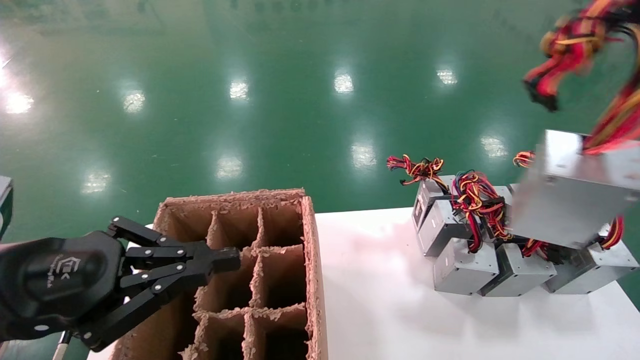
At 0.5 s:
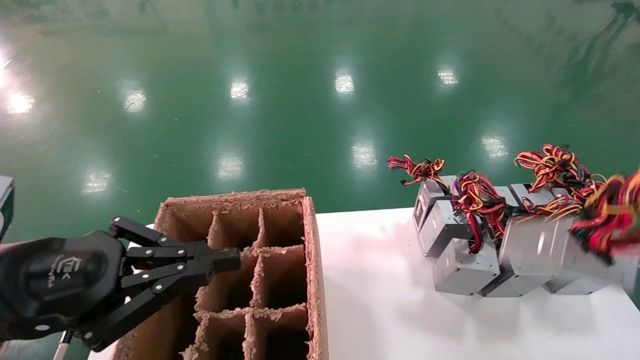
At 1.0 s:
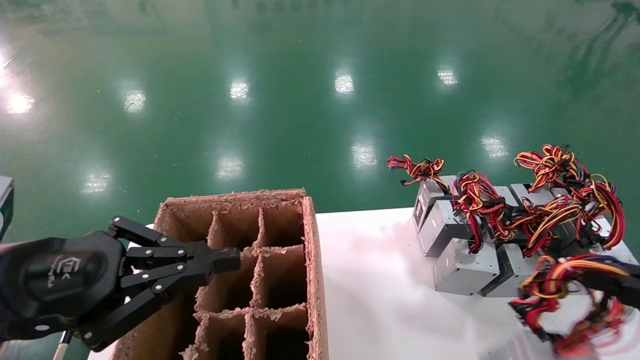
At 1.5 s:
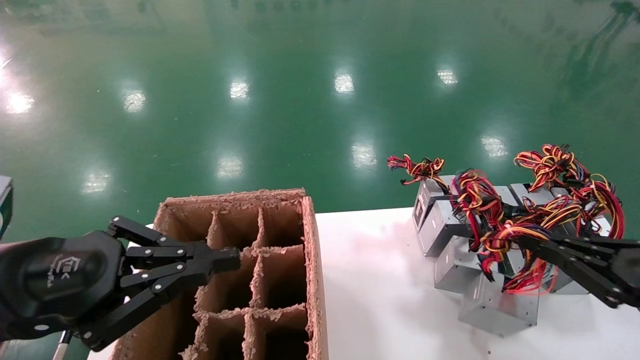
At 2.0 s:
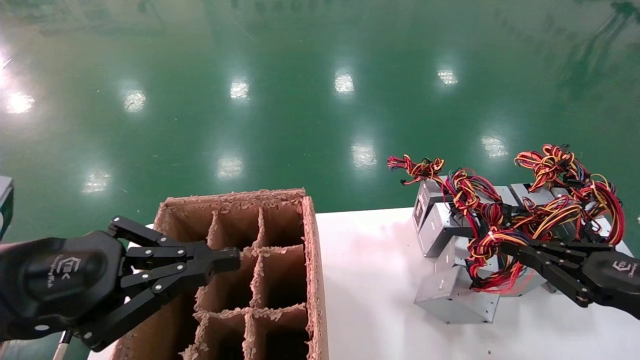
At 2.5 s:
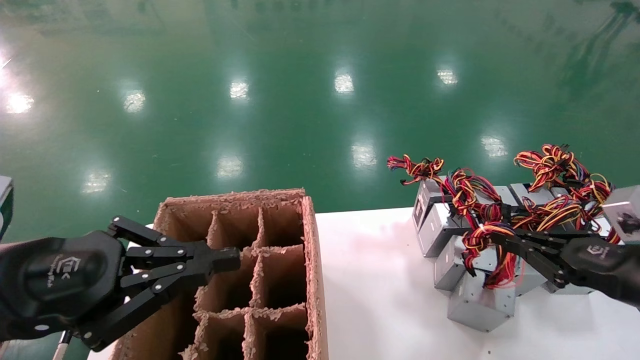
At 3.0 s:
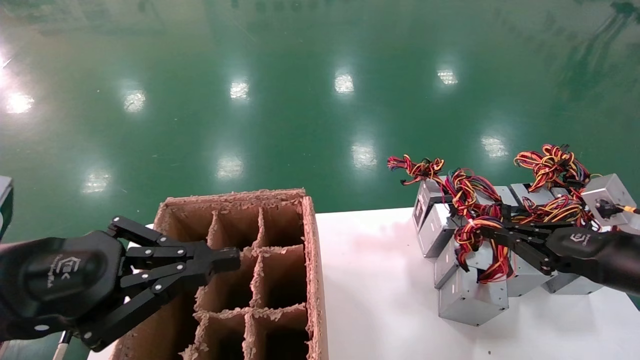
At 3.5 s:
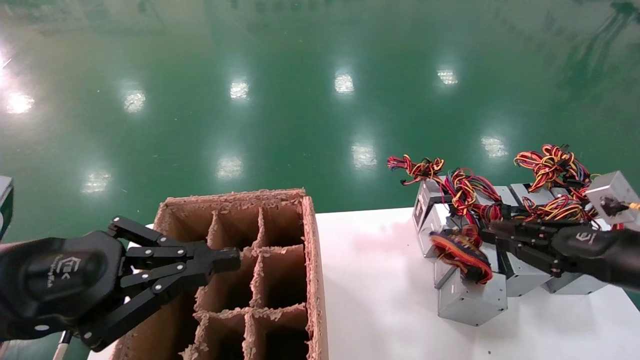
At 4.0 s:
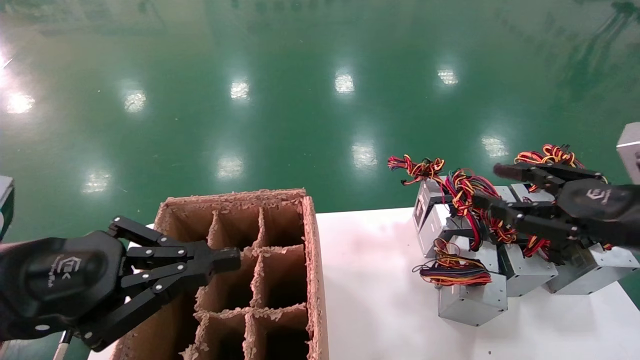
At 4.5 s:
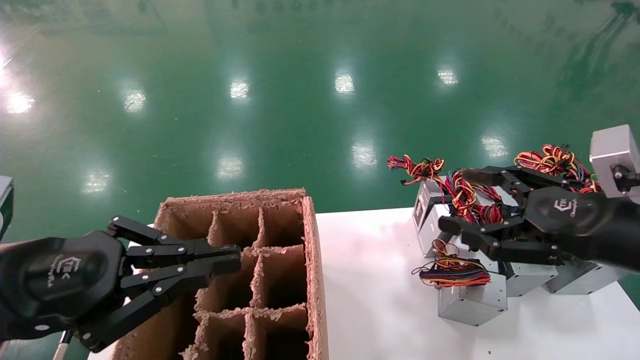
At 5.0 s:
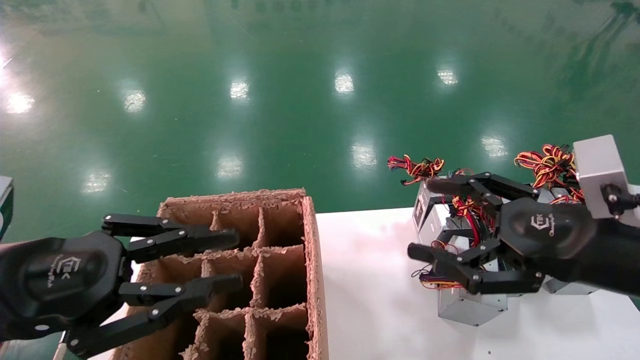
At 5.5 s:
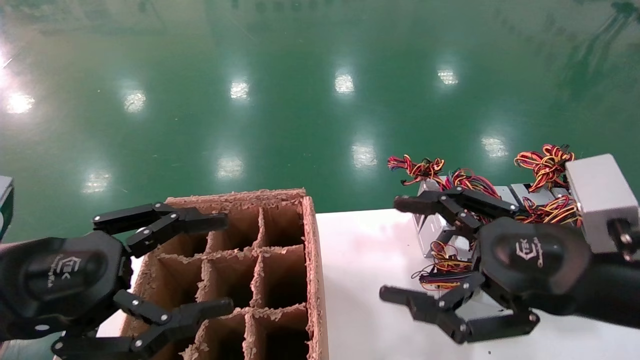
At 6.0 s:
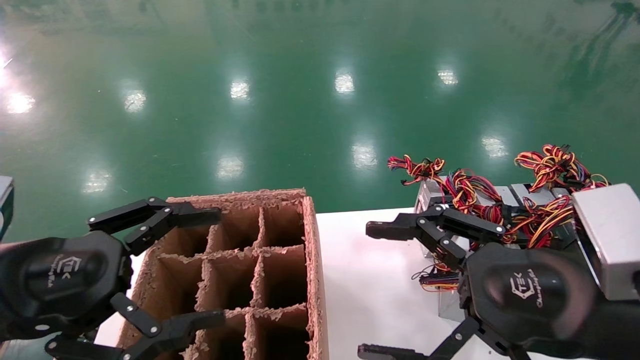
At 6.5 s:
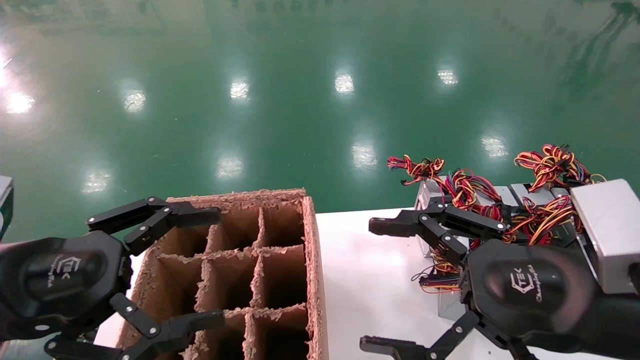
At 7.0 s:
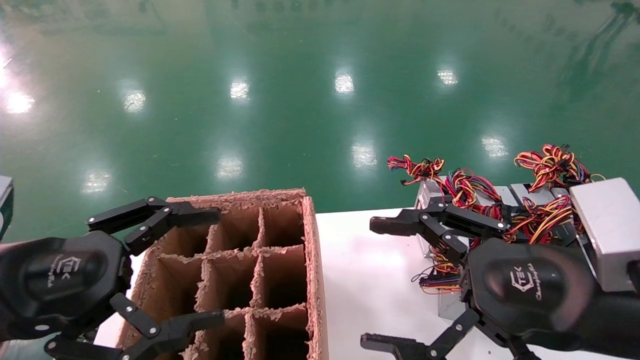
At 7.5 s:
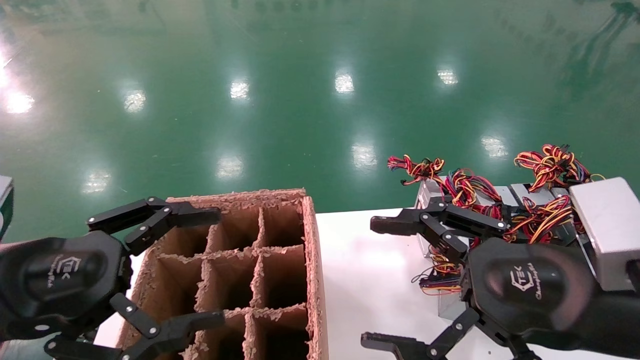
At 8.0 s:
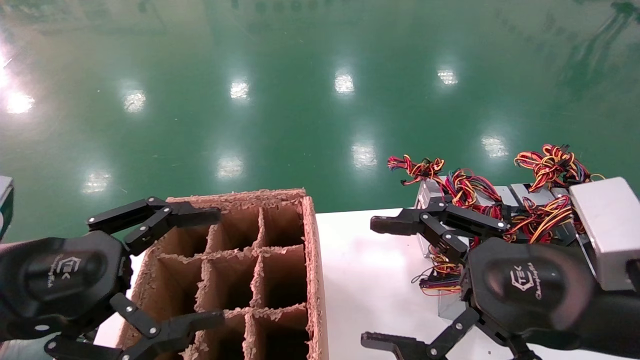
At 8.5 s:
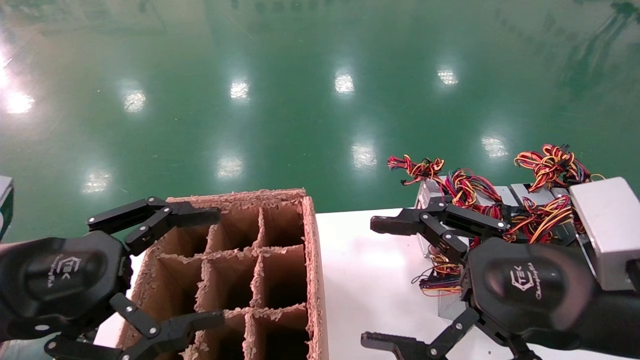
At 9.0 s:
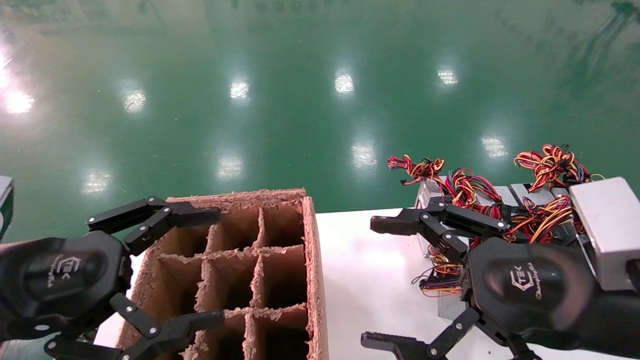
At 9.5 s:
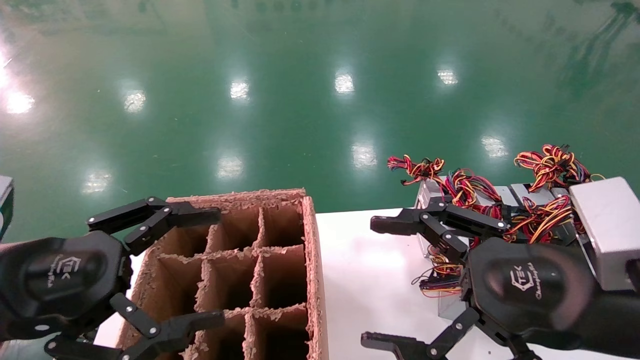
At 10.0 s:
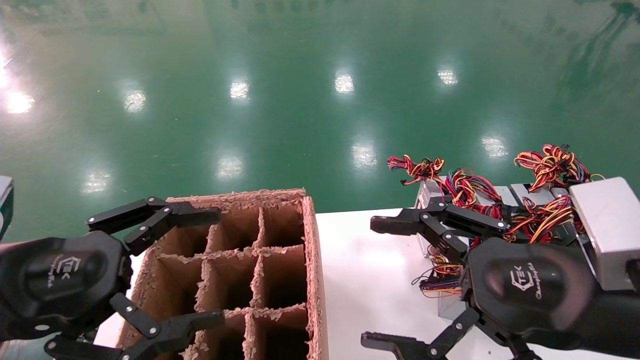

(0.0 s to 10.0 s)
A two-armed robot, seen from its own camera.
Step, 0.0 s - 5.0 s: Place the main unit power supply in the designated area.
0.0 s - 2.0 s: The right gripper travels downward and forward by some 20 cm.
2.0 s - 4.0 s: The right gripper is displaced upward by approximately 5 cm, and opens its fingers.
4.0 s - 6.0 s: The right gripper moves to the left and backward, about 15 cm, and opens. Meanwhile the left gripper opens its fingers.
6.0 s - 10.0 s: Neither gripper changes place.

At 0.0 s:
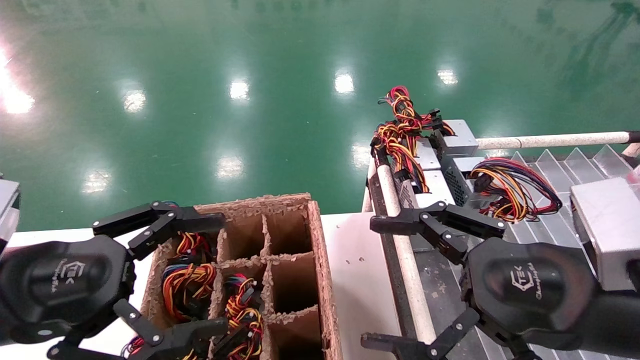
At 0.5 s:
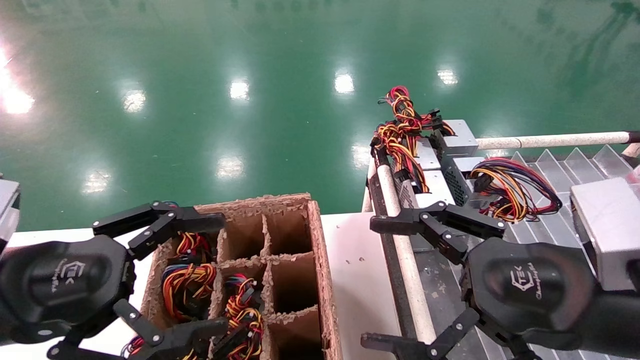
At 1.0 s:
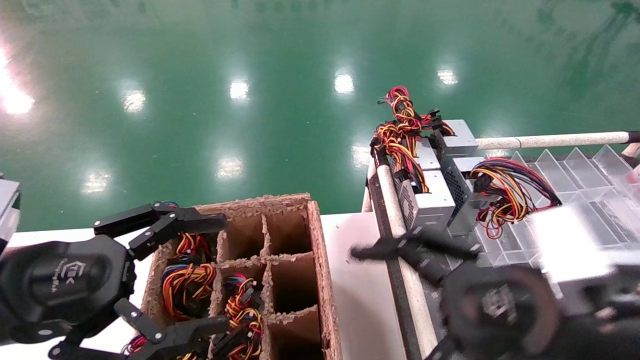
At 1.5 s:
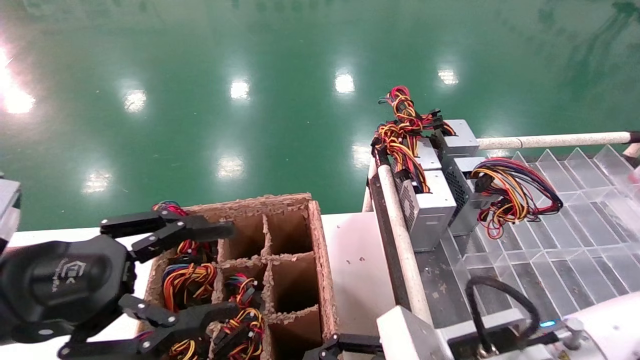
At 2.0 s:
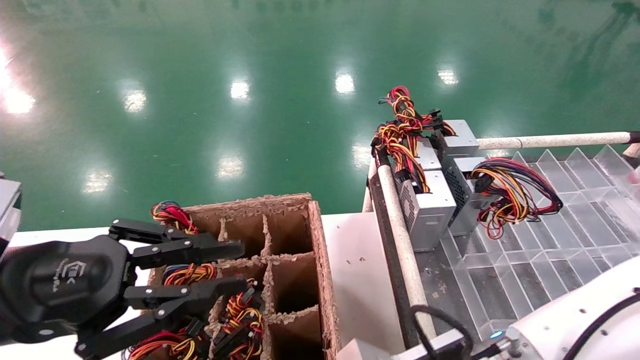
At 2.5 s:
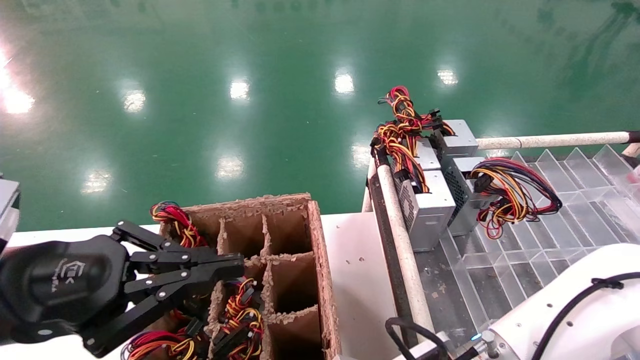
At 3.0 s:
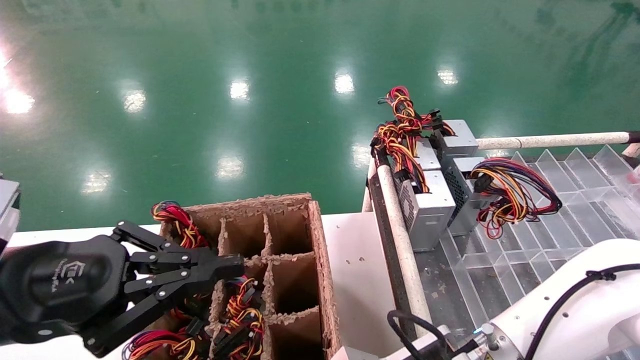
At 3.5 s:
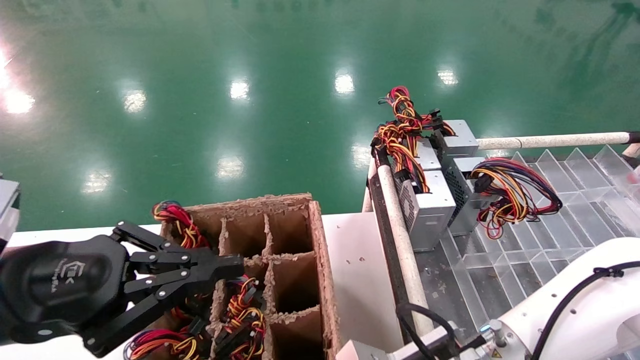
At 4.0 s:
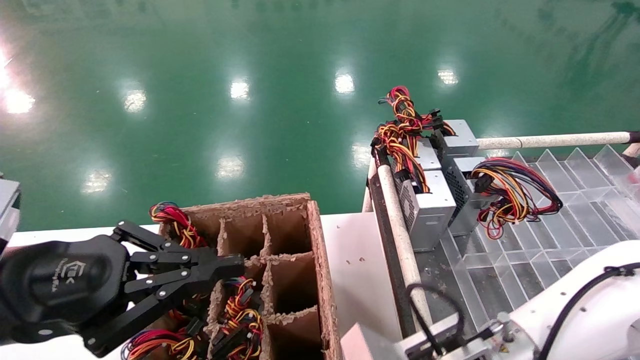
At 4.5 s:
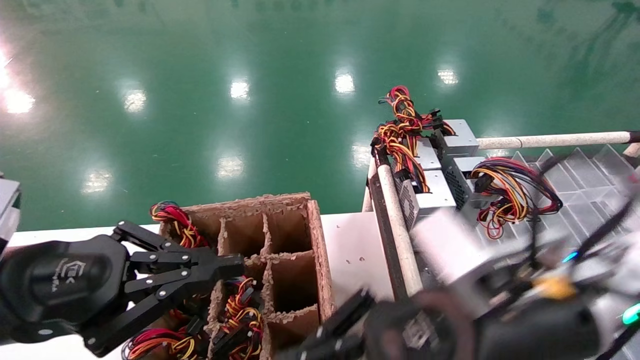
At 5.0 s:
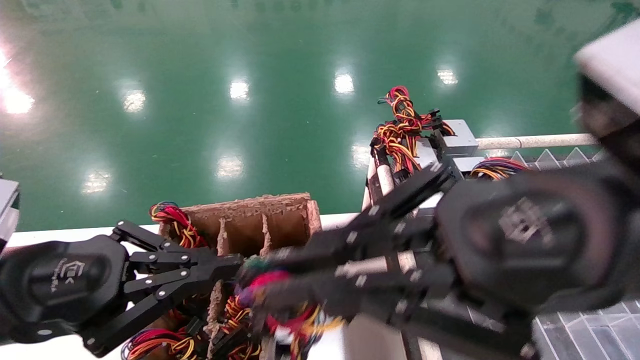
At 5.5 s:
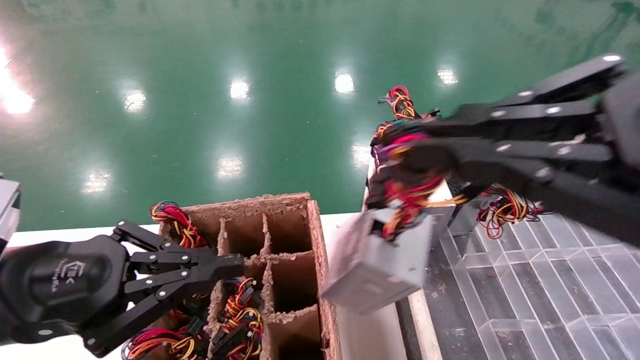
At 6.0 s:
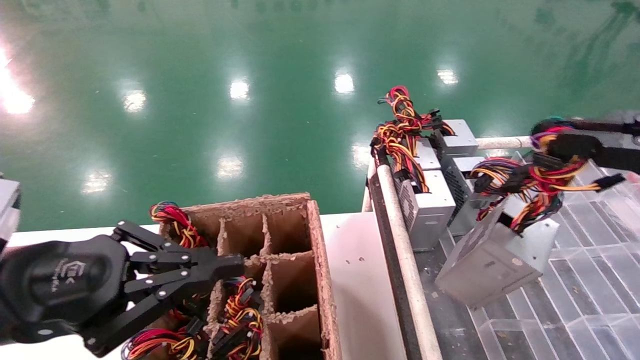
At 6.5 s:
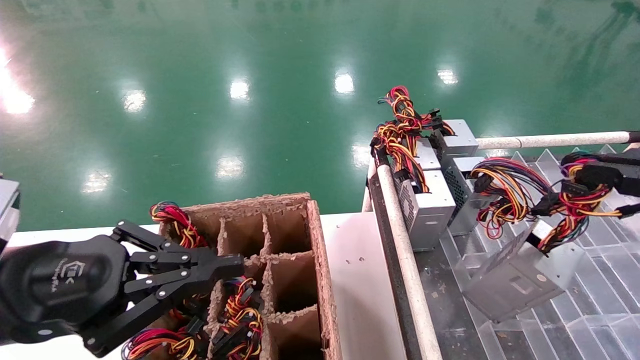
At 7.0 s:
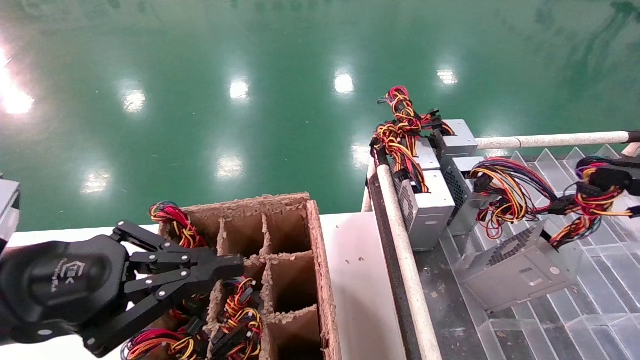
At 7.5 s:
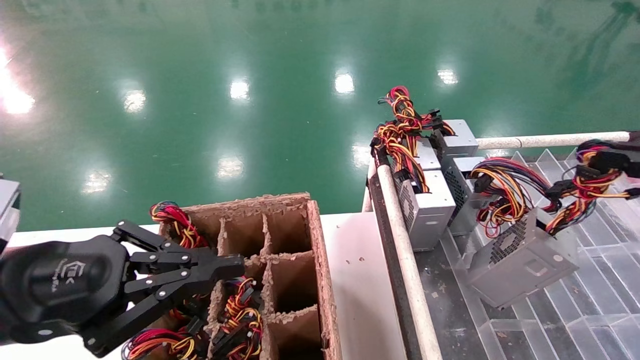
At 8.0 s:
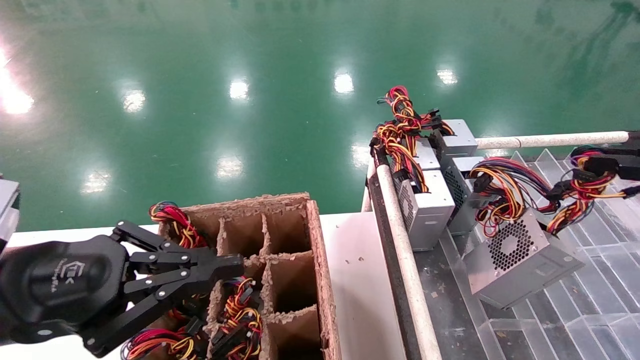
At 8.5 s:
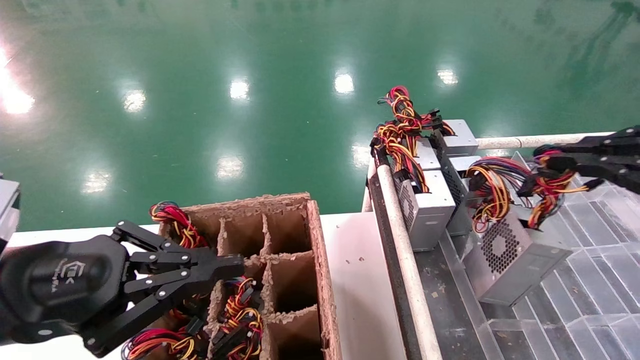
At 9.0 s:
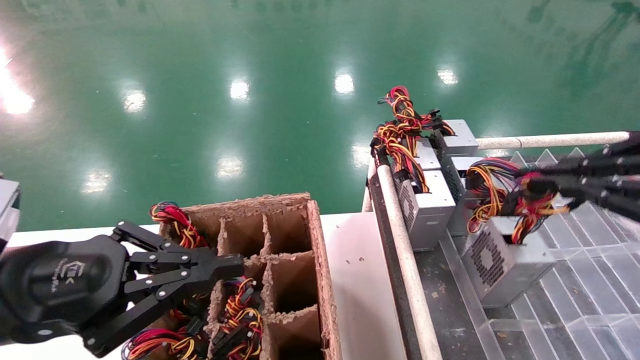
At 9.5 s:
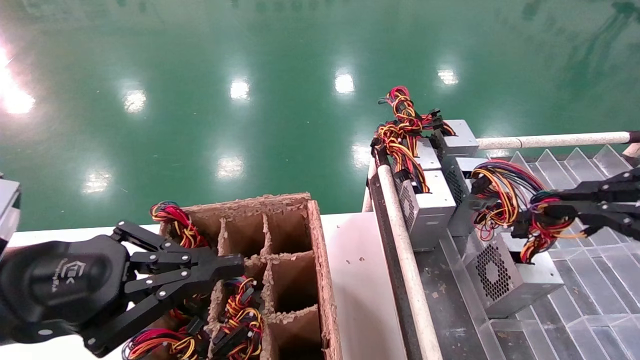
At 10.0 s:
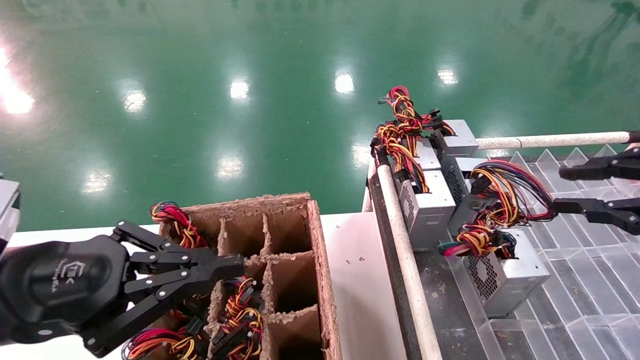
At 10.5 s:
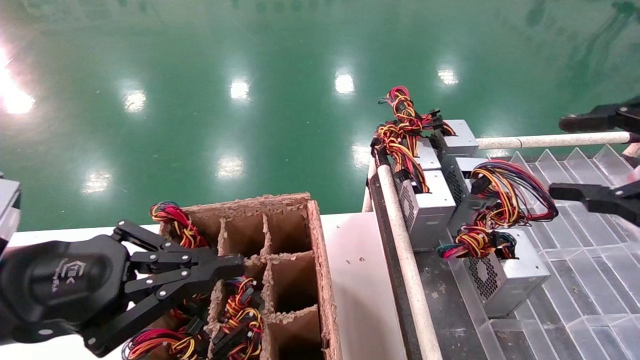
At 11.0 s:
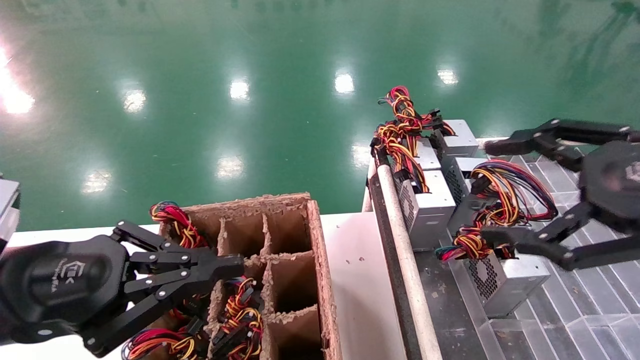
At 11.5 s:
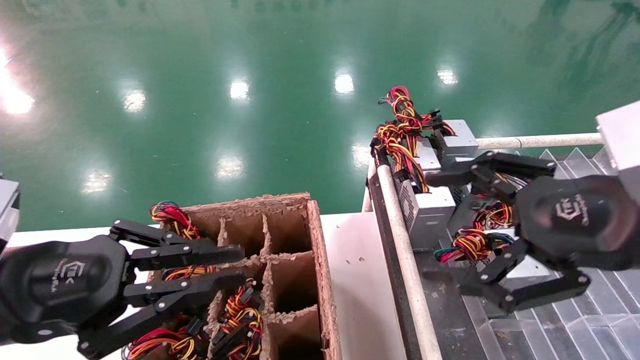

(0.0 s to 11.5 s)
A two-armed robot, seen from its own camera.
Step, 1.5 s - 3.0 s: Grab the main unit power supply from the containment box.
Step, 3.5 s - 9.5 s: Place the main unit power supply in the designated area.
0.0 s - 2.0 s: The left gripper closes its fingers. Meanwhile the right gripper heads downward and to the left, covering about 15 cm.
2.0 s - 4.0 s: The right gripper closes up, while the left gripper closes up.
4.0 s - 6.0 s: The right gripper heads to the right, upward and backward, covering approximately 35 cm.
6.0 s - 7.5 s: The right gripper moves to the right, some 10 cm.
7.5 s - 9.5 s: The grippers stay close to where they were, moving slightly.
9.5 s - 11.5 s: The right gripper heads to the left, covering roughly 10 cm, and opens its fingers.
